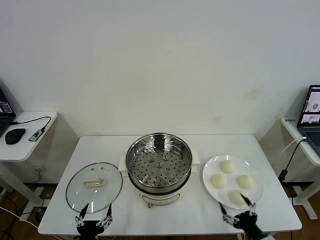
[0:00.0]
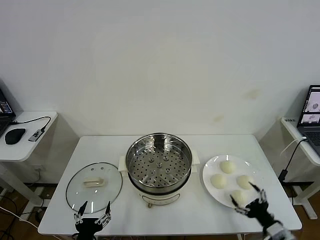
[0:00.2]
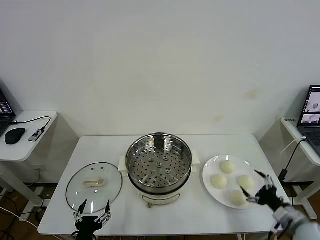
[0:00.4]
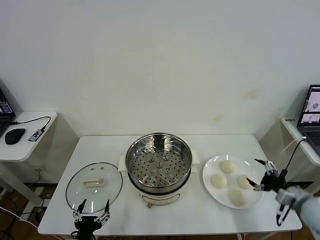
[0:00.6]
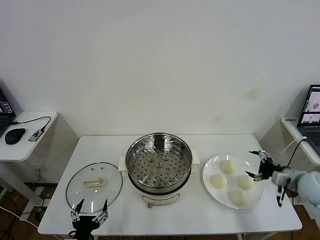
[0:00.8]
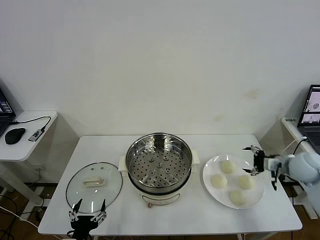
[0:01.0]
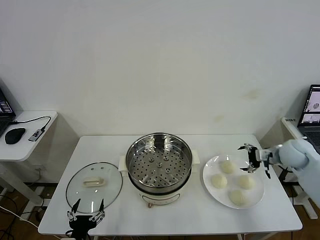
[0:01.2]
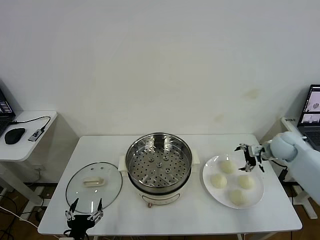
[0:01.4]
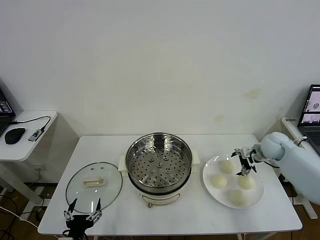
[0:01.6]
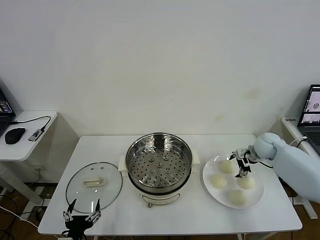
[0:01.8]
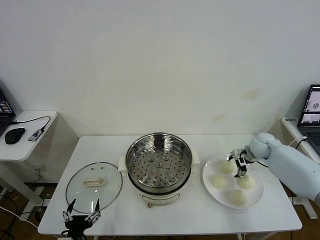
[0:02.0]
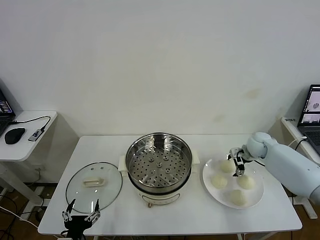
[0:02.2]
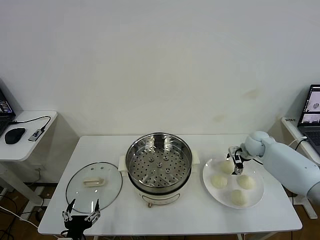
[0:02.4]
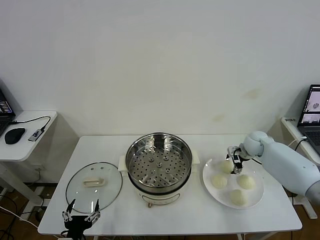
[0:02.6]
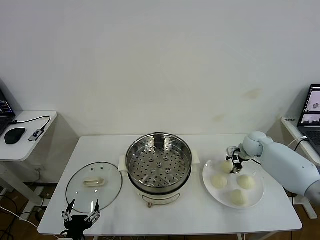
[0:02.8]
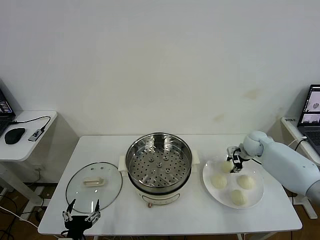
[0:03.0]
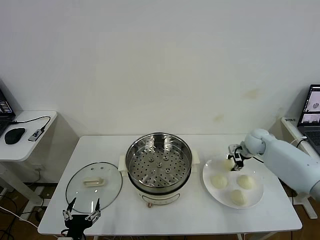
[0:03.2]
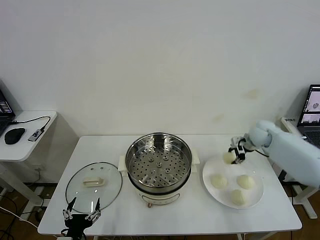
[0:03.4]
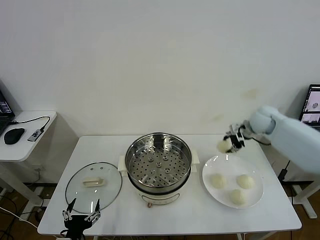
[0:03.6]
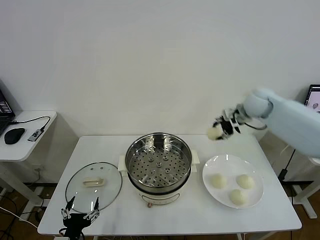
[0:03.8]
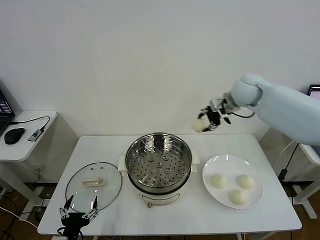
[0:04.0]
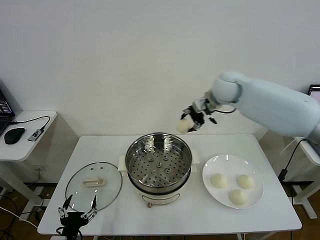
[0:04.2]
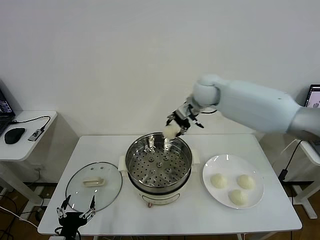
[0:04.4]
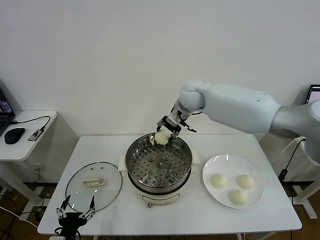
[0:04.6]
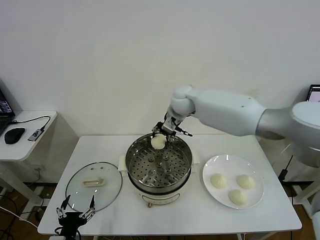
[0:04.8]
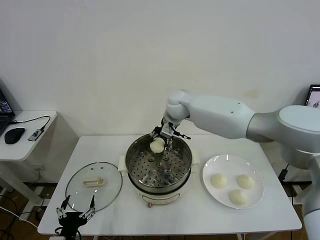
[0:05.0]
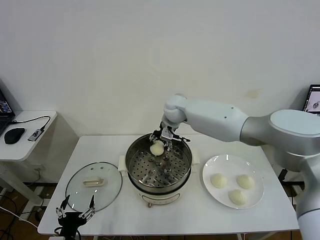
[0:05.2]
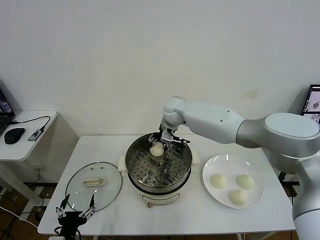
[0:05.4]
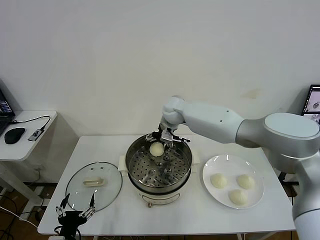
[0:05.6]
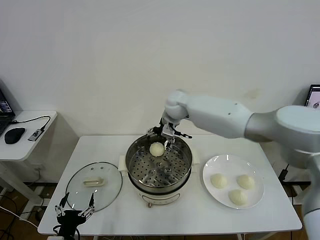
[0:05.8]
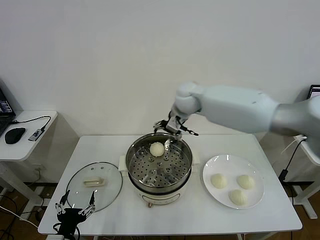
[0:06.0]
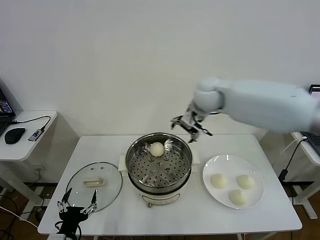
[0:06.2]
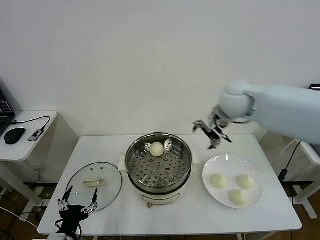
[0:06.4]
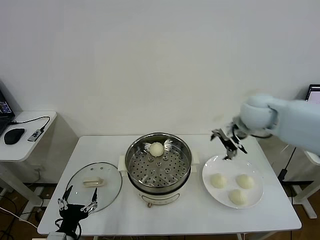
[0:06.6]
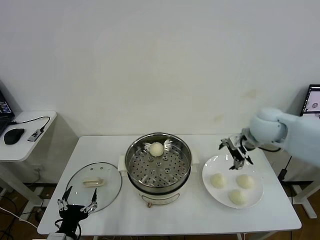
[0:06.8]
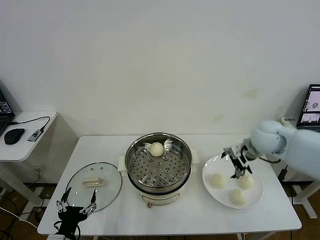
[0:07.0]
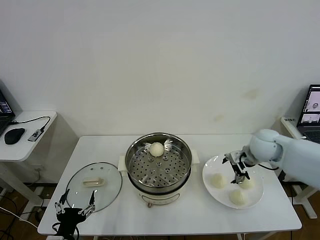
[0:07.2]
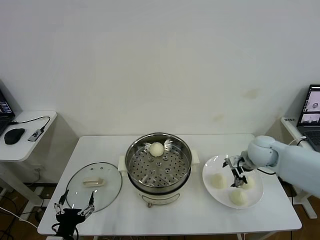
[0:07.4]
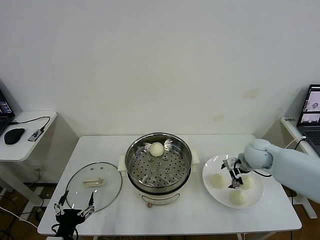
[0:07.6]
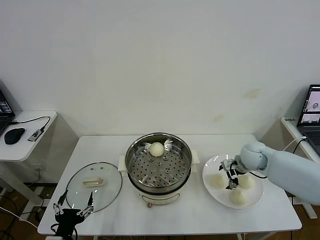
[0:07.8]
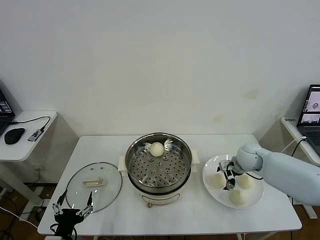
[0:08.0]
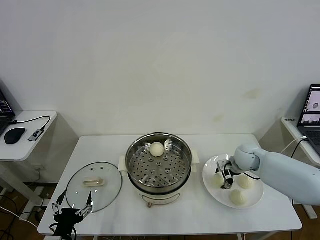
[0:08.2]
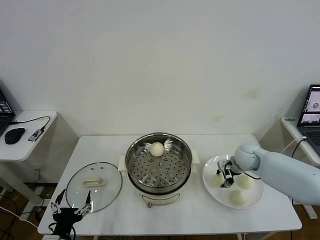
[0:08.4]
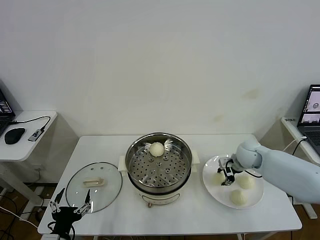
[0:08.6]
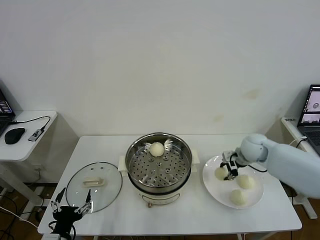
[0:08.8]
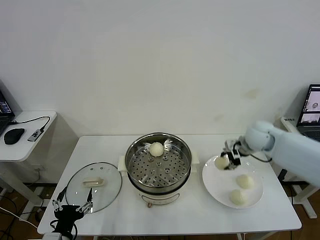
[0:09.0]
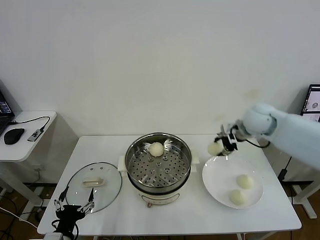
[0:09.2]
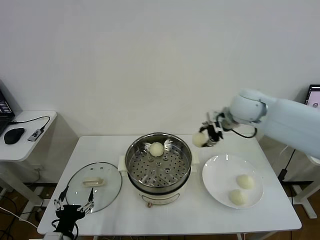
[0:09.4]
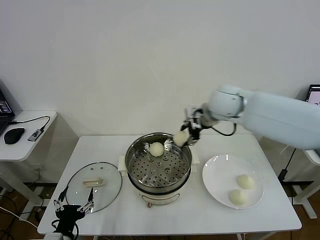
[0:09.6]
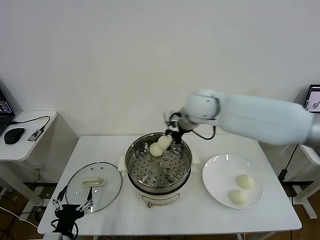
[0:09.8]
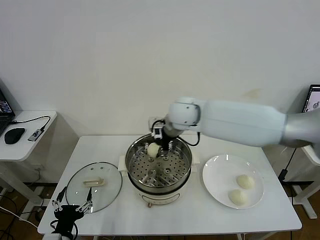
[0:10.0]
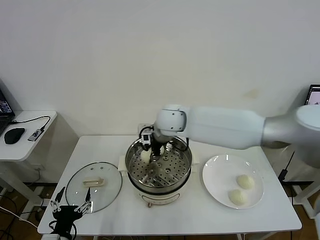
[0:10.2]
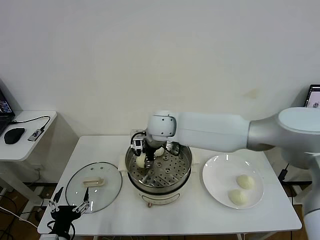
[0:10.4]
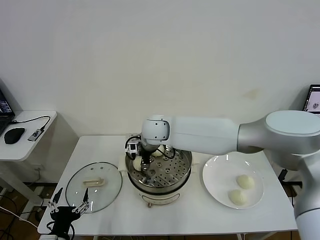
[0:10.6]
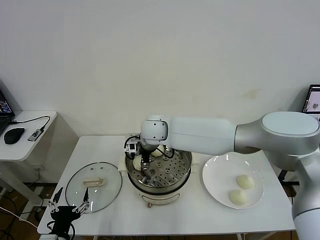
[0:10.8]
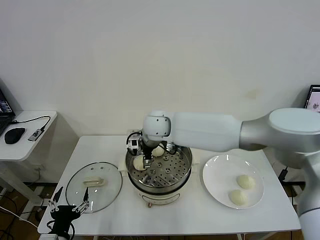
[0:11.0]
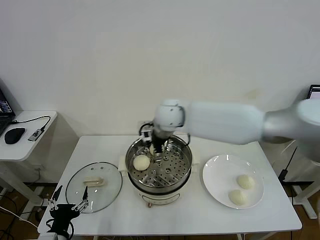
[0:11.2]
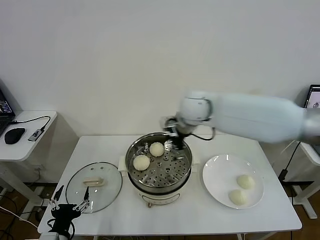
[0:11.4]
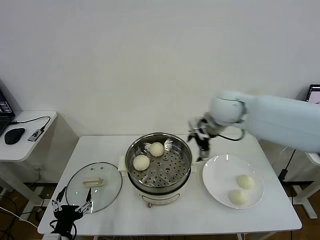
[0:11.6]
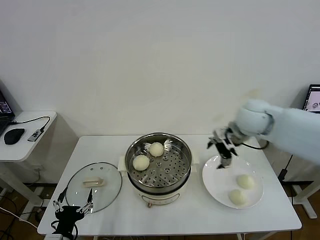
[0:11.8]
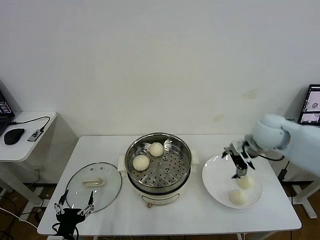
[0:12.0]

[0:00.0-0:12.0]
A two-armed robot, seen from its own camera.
Task of the whole recording: take steamed baozi put them in steamer then cover it.
Step, 0.0 to 3.0 s: Grasp the baozi in the plate with right gripper.
Step, 3.2 to 5.6 s: Place the baozi on the steamer with right gripper.
Step, 6.0 to 8.6 s: Grasp the baozi in the plate with right gripper.
Step, 8.8 to 11.0 s: Place the baozi on the steamer with right gripper.
1.6 to 3.0 s: The right gripper closes its fingers.
3.0 to 4.4 s: The right gripper moves to the left and upward, approximately 35 cm.
4.4 to 6.0 s: The right gripper travels downward and back again, about 10 cm each way, and opens up.
6.0 to 7.6 s: The right gripper travels to the right and downward by approximately 30 cm.
7.6 to 9.0 s: The right gripper goes about 10 cm upward, and closes its fingers.
9.0 to 10.4 s: The right gripper heads to the left, covering about 35 cm.
10.4 to 12.0 s: The right gripper heads to the right, covering about 35 cm, and opens up.

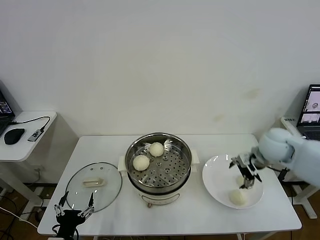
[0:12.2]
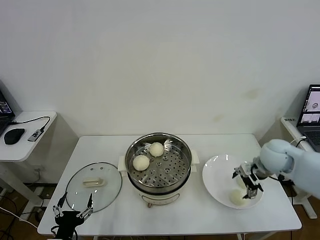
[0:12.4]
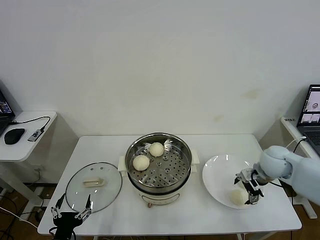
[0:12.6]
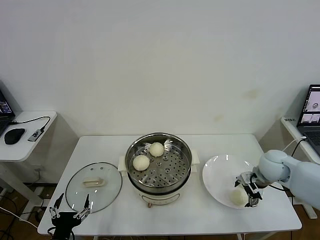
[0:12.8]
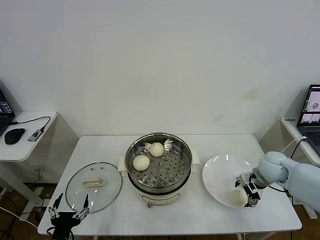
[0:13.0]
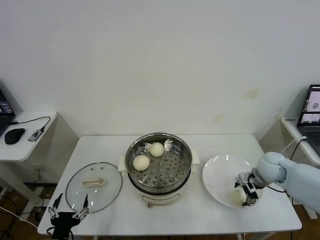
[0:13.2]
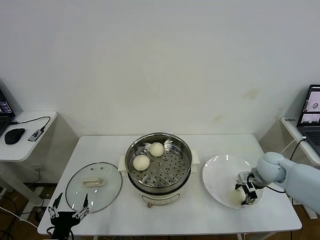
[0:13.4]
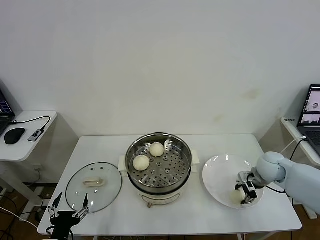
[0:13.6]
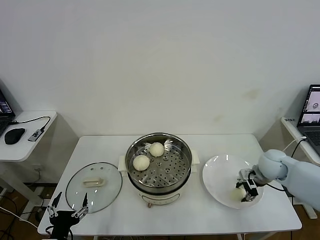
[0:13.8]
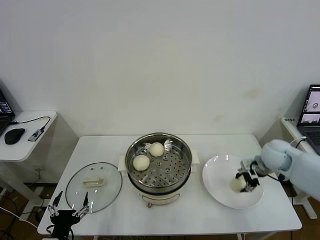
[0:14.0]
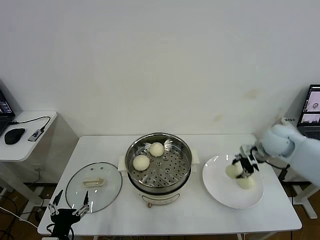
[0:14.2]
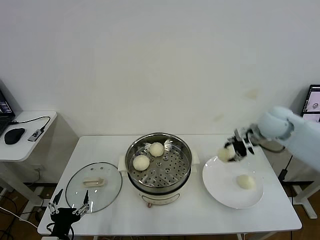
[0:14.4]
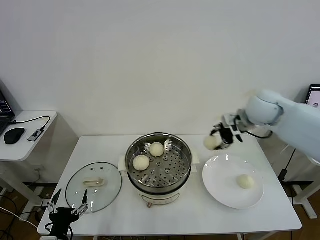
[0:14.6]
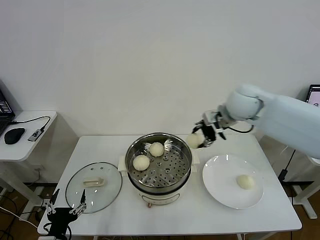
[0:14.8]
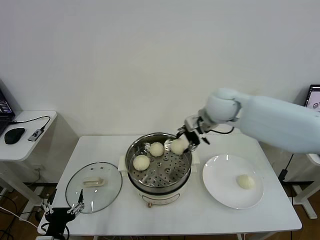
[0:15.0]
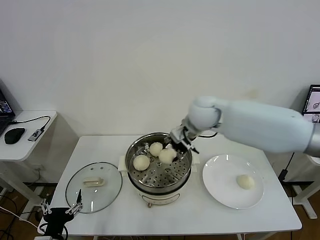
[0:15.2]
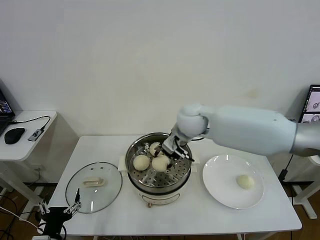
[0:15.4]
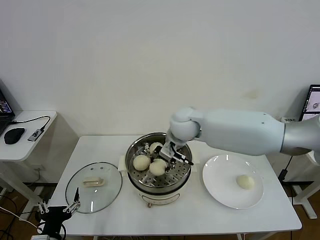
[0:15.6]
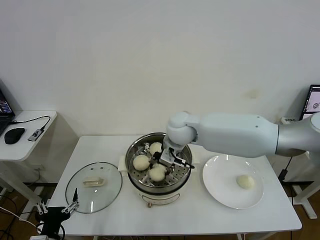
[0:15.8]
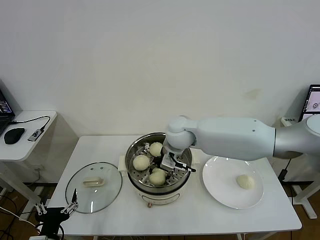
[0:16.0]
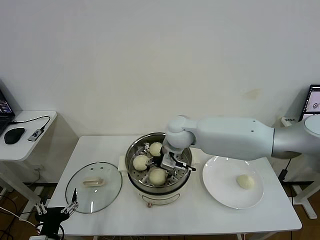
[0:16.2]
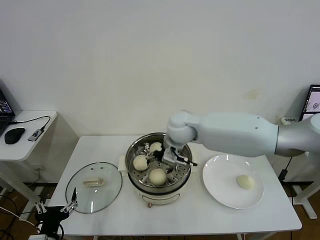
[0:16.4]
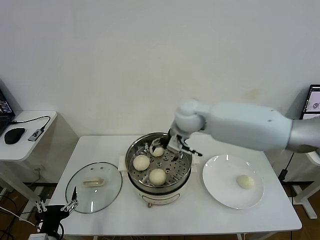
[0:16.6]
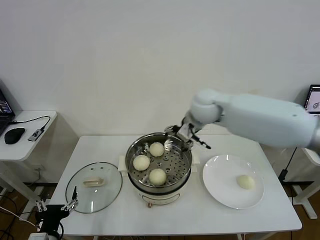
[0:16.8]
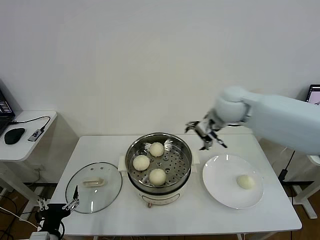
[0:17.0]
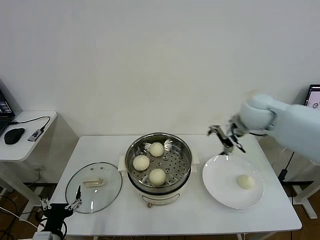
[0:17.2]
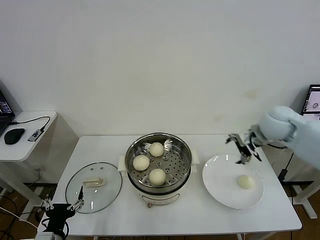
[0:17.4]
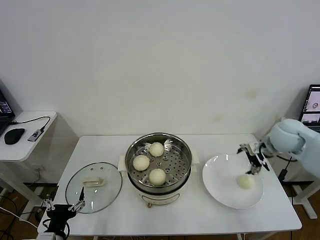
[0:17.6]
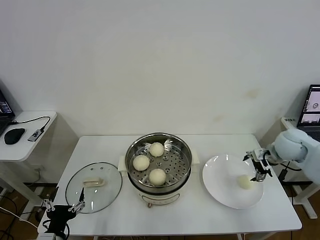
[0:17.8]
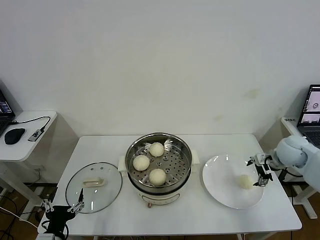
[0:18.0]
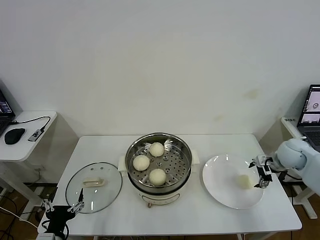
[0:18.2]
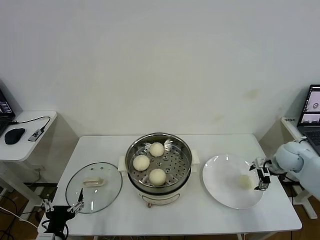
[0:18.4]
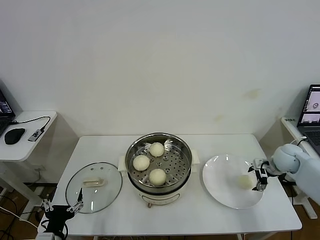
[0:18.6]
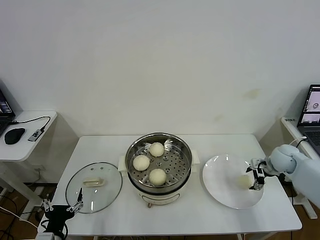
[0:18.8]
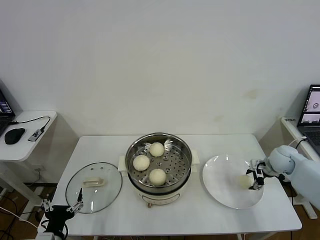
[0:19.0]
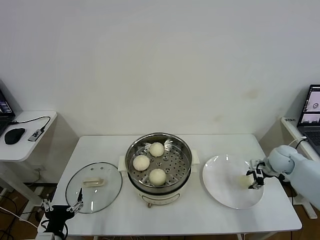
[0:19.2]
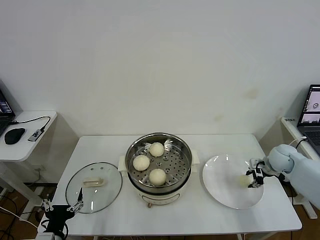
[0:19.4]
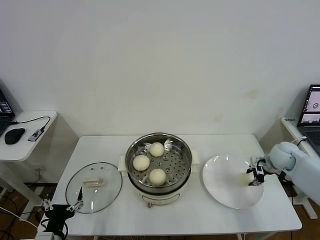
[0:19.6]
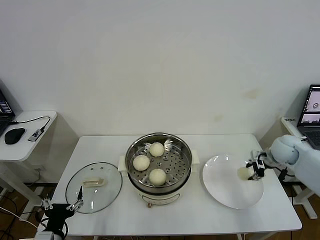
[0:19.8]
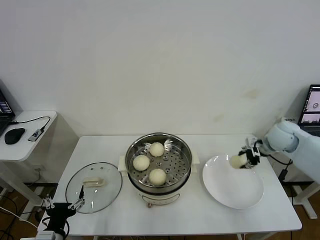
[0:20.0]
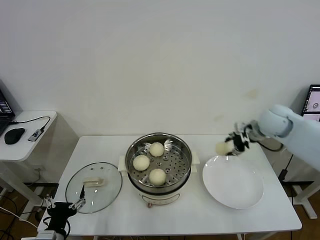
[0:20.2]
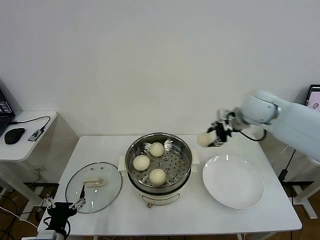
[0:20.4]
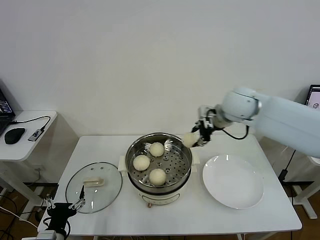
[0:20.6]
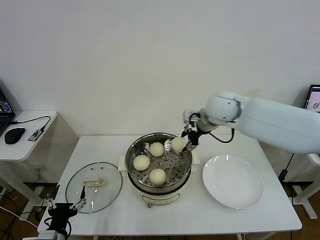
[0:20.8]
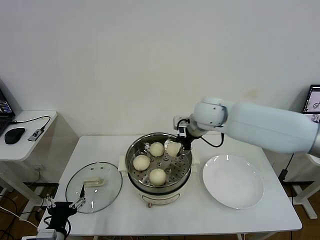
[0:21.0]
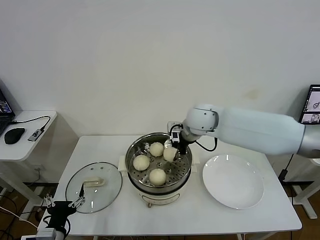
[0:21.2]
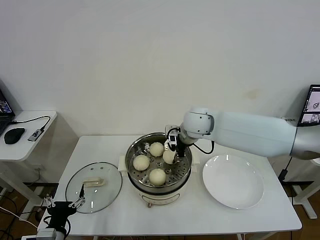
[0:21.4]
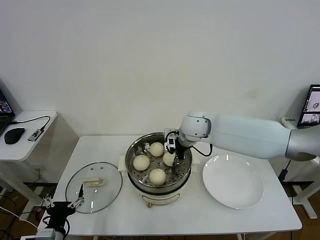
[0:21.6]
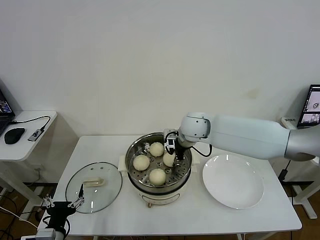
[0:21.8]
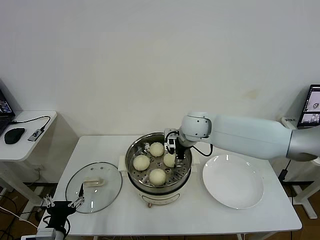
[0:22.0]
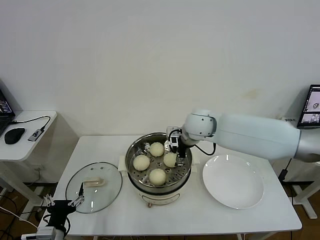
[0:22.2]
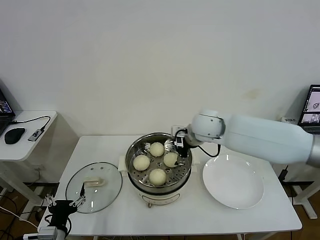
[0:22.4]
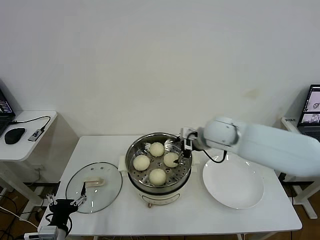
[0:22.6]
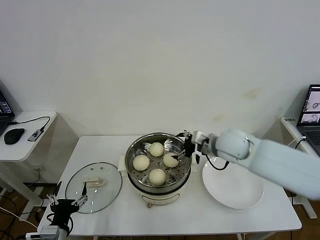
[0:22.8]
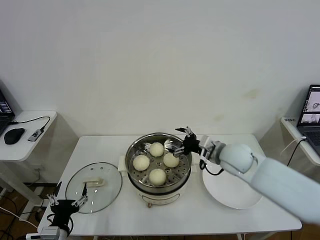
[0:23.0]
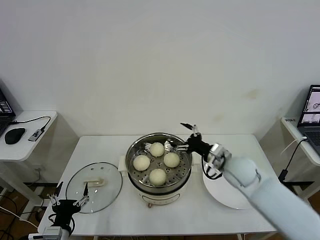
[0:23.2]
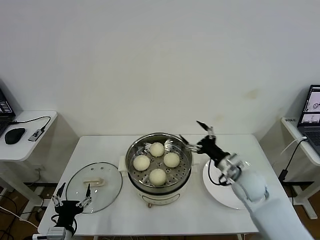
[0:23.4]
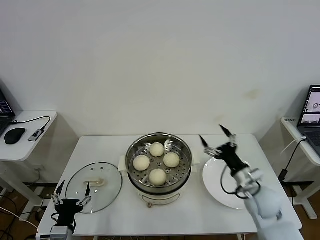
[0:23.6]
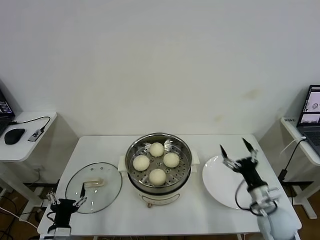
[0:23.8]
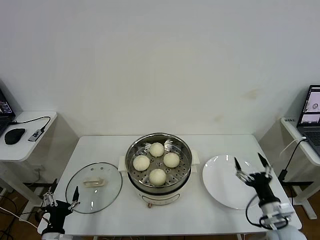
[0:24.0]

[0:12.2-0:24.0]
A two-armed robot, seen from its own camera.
Task of the whole recording: take steamed baozi put them in steamer then cover it.
Step, 12.2 to 13.8 s: Grasp the baozi in the plate with right gripper.
Step, 14.0 to 16.4 s: Place the baozi on the steamer with right gripper.
Step, 16.6 to 19.6 s: Grasp the baozi in the plate with right gripper.
Step, 19.8 to 22.2 s: Place the baozi on the steamer with right gripper.
12.2 to 13.6 s: The right gripper is displaced downward by roughly 10 cm, and closes up.
13.6 to 15.2 s: The right gripper is displaced to the left and upward by roughly 30 cm.
15.2 to 16.6 s: The right gripper opens up.
16.6 to 18.2 s: The right gripper shifts about 35 cm to the right.
18.2 to 19.6 s: The right gripper closes.
19.6 to 21.0 s: The right gripper shifts roughly 35 cm to the left and upward.
21.0 to 22.6 s: The right gripper moves approximately 5 cm, and opens up.
22.6 to 24.0 s: The left gripper moves some 5 cm; the right gripper heads backward, downward and to the right, covering approximately 35 cm.
